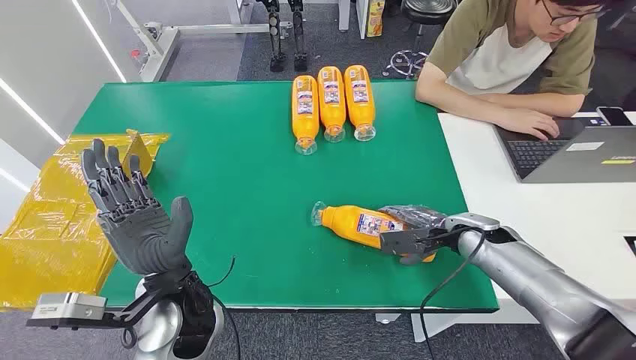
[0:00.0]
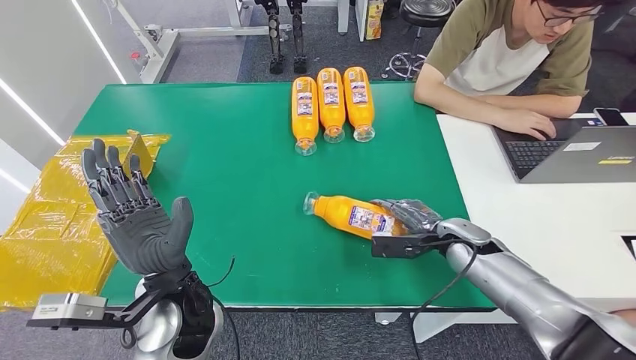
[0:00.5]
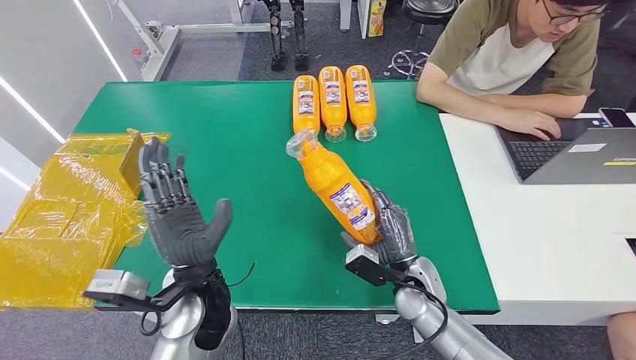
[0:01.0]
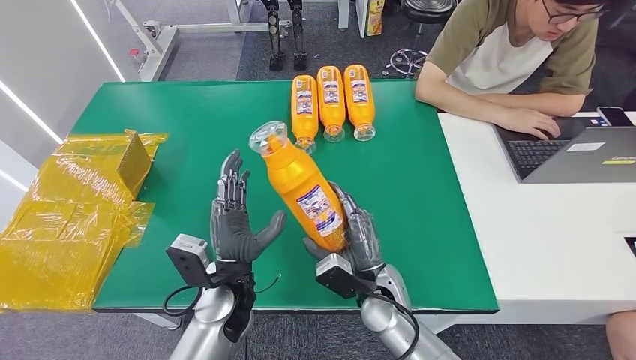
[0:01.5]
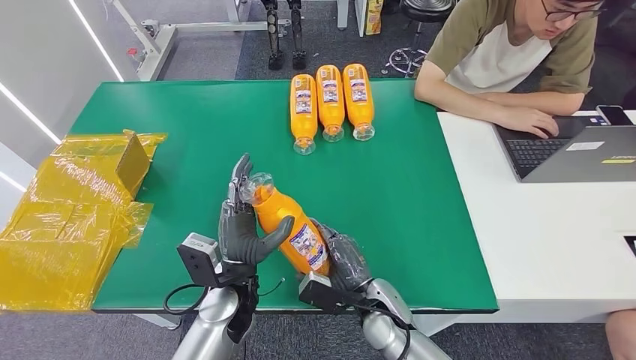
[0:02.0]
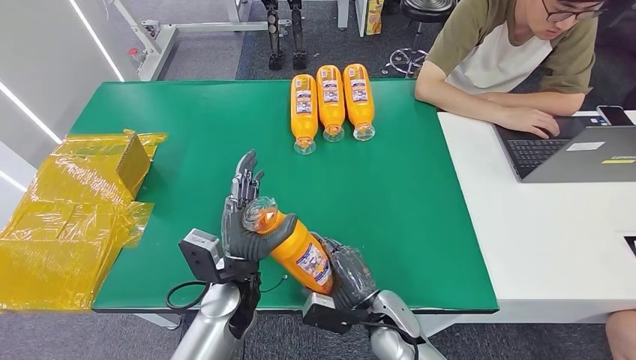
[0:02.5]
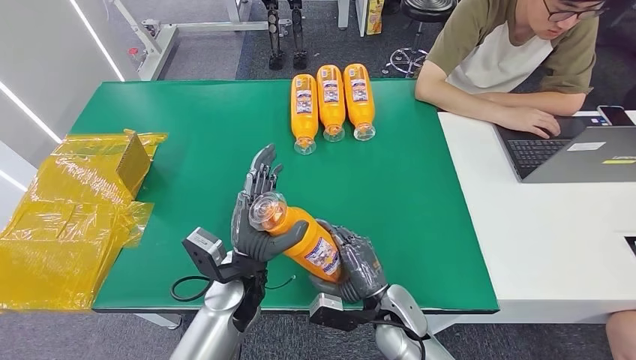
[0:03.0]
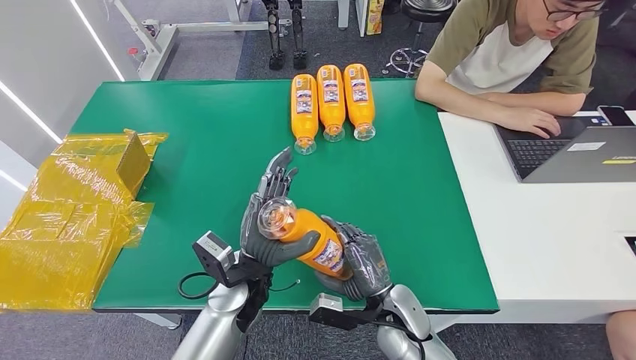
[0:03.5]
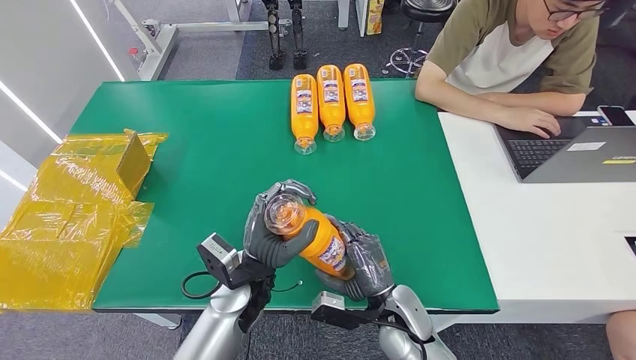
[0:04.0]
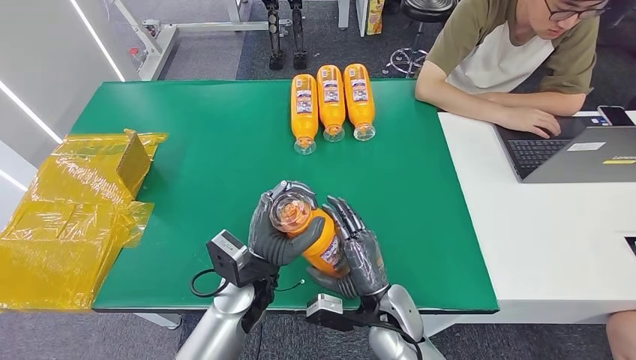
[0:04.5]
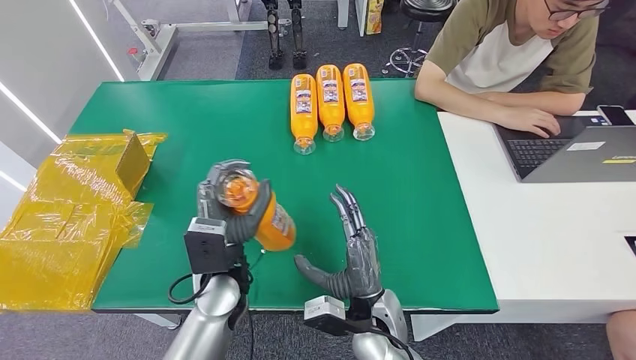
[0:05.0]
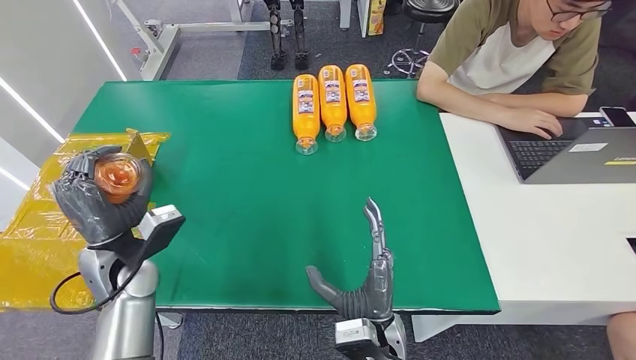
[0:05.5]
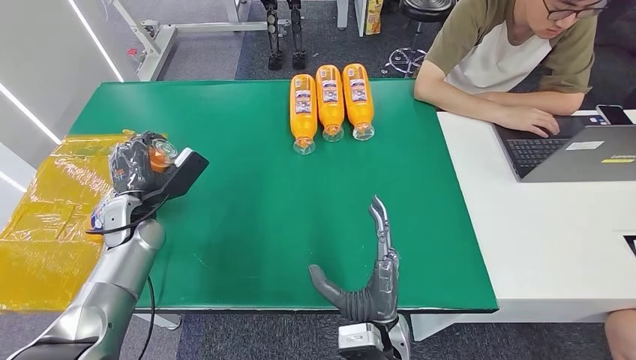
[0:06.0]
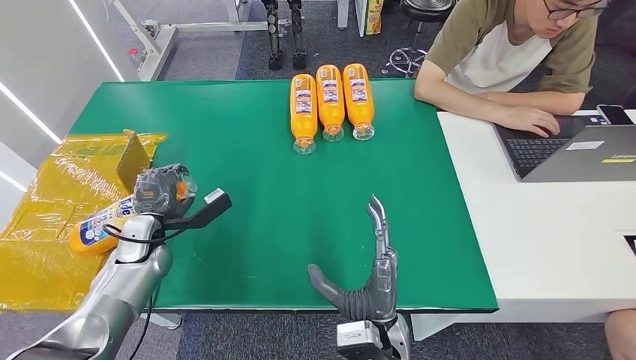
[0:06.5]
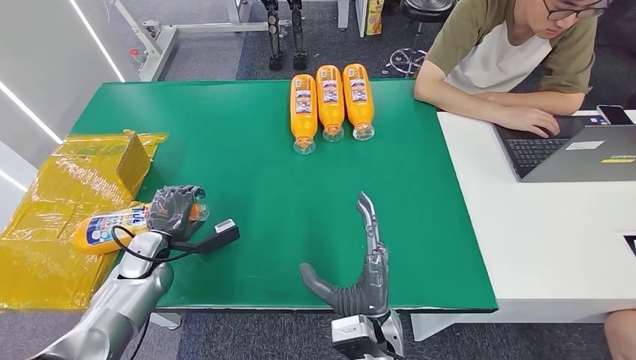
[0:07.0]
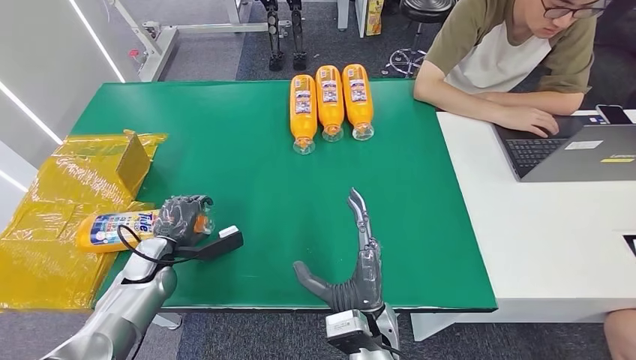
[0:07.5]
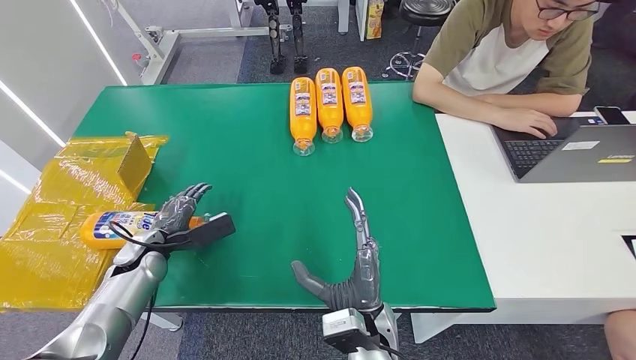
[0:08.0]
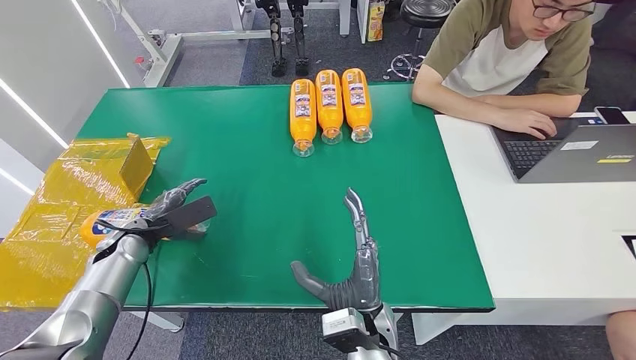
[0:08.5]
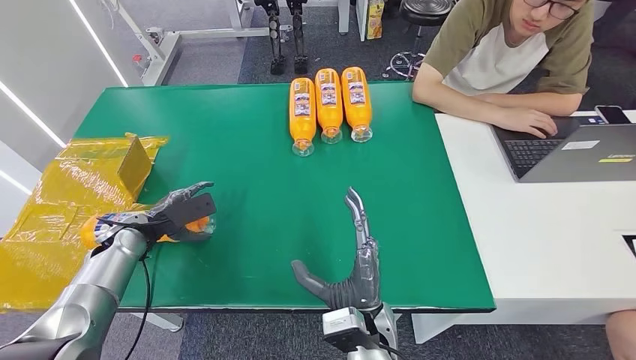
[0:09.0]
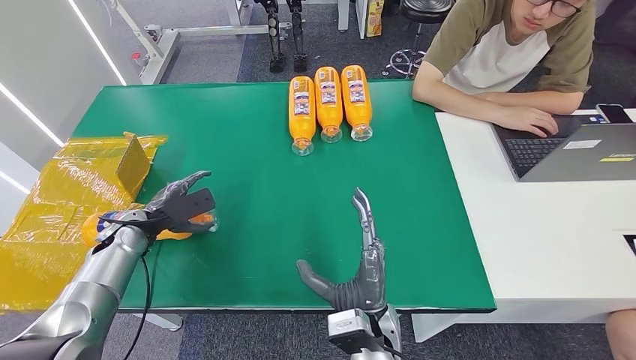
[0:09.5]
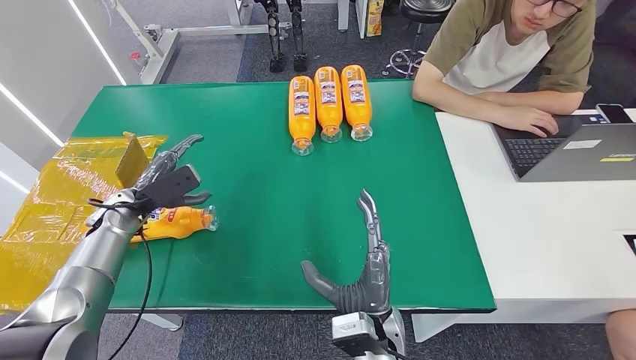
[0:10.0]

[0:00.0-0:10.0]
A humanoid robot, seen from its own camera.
Step, 0:00.0 to 0:03.0: Pick up the bottle from the table.
Step, 0:03.5 to 0:10.0: Turn the bottle to the front side.
0:02.0 to 0:04.0: The hands stay close to where they were, moving slightly.
0:04.0 to 0:06.0: The left hand goes approximately 25 cm to the left and forward, while the right hand goes about 10 cm to the left and backward.
0:06.0 to 0:08.0: The left hand moves downward and backward, approximately 10 cm.
0:08.0 to 0:10.0: The left hand moves upward and forward, approximately 10 cm.
